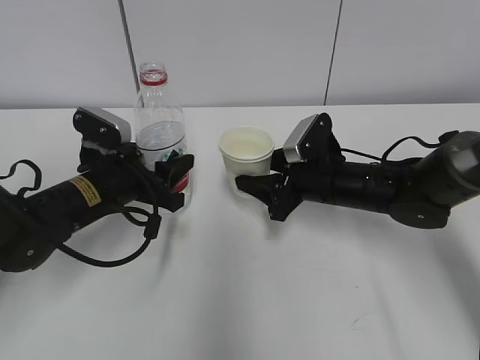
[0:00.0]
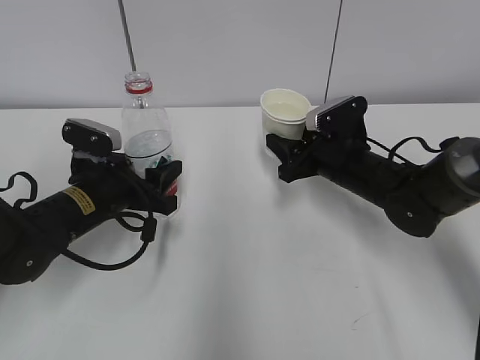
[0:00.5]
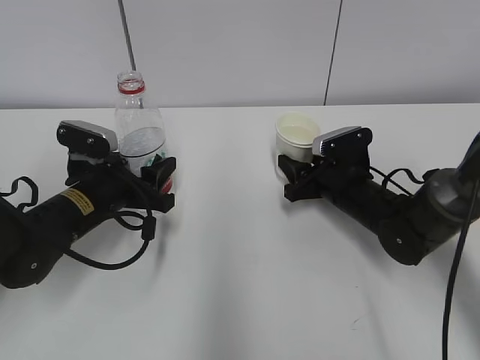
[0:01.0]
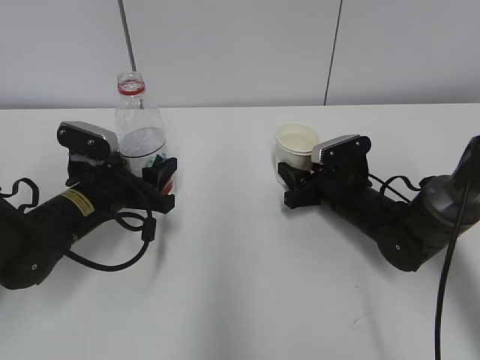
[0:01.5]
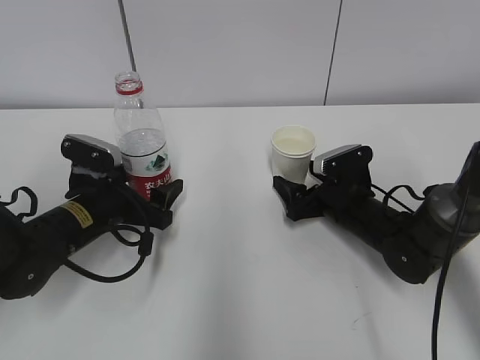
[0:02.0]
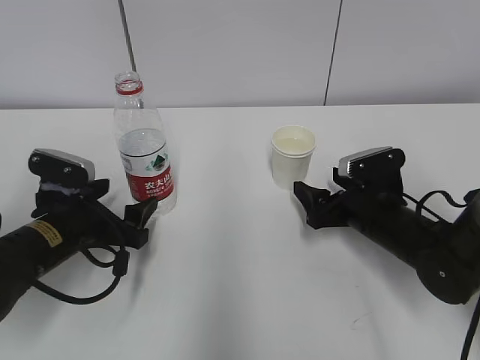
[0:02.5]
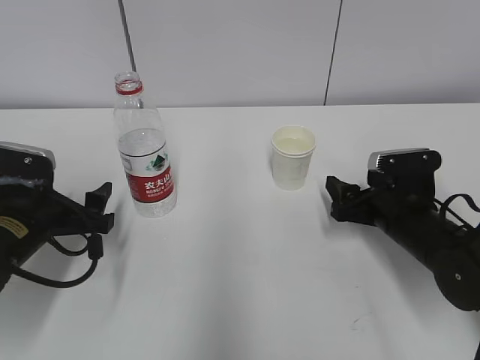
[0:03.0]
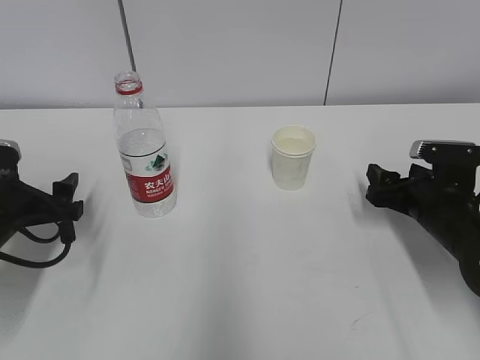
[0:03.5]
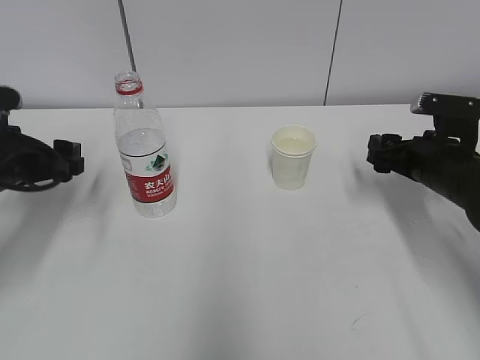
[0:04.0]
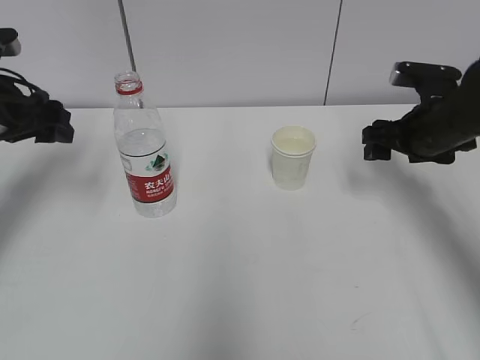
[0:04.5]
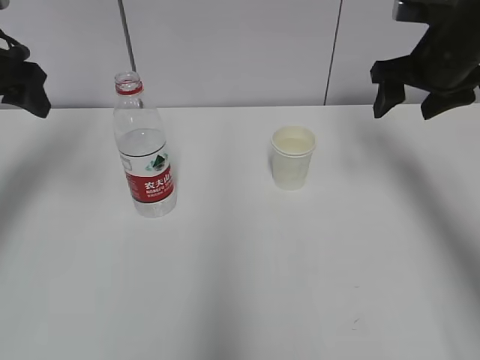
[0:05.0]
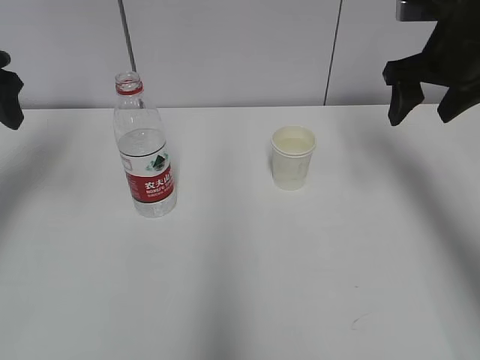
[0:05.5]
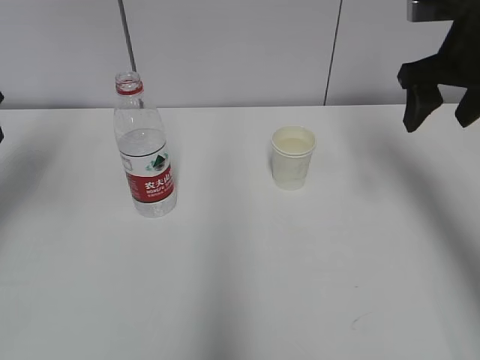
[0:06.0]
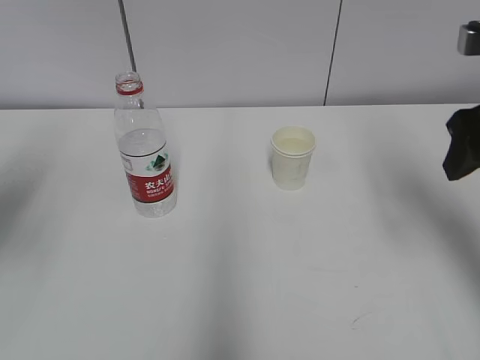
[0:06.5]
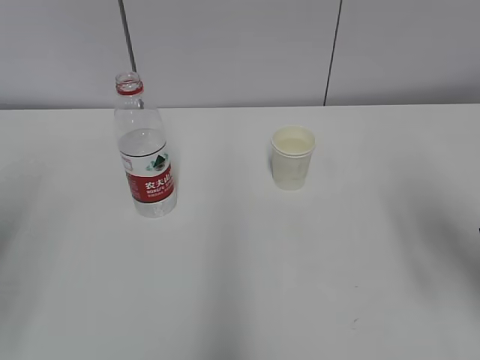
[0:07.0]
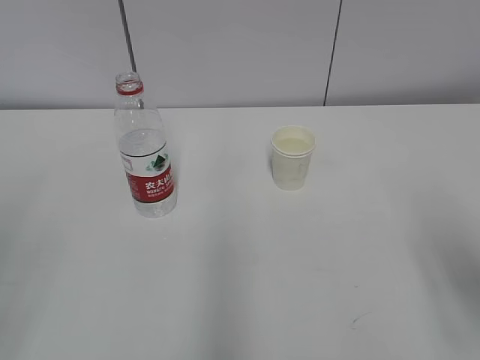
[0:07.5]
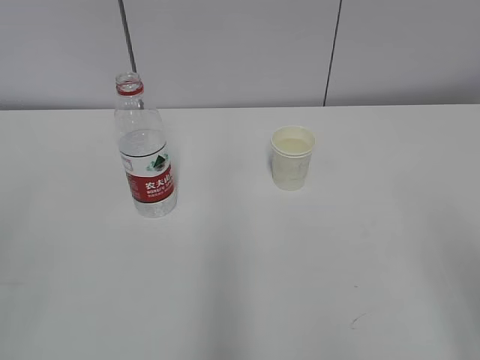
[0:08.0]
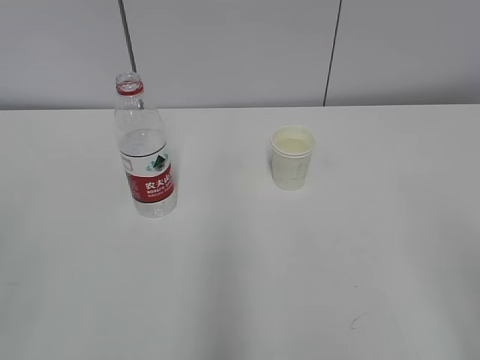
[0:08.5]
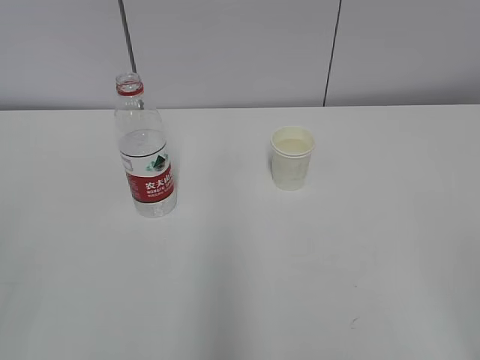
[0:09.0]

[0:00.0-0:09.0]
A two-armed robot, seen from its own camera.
0:00.0 to 0:02.0: The right gripper heads downward, covering roughly 5 cm, and opens its fingers. The left gripper opens its fingers.
0:02.0 to 0:04.5: The right gripper heads upward and to the right, covering some 15 cm; the left gripper moves upward and to the left, some 20 cm.
0:04.5 to 0:07.0: The right gripper goes roughly 20 cm backward and upward. The left gripper moves backward, about 20 cm.
0:07.0 to 0:09.0: The right gripper shifts some 20 cm backward.

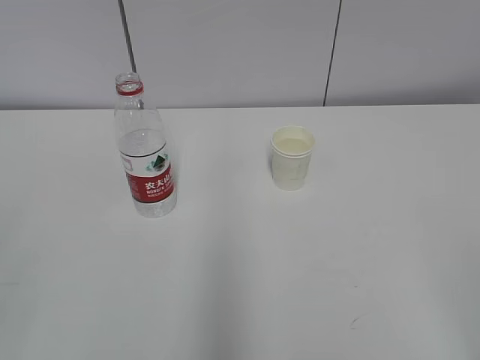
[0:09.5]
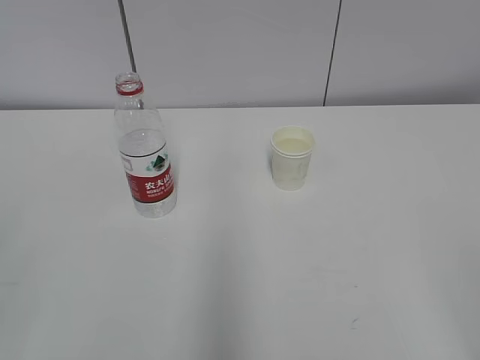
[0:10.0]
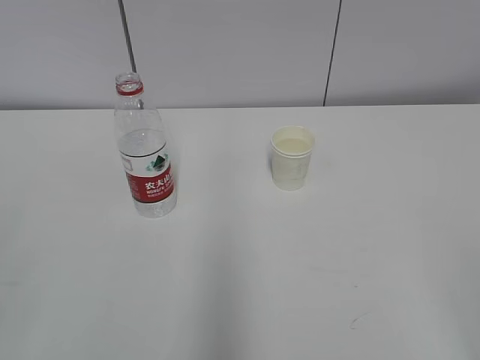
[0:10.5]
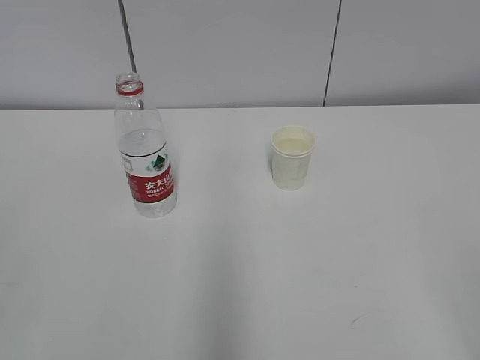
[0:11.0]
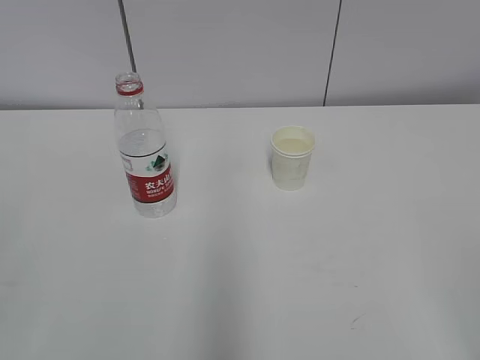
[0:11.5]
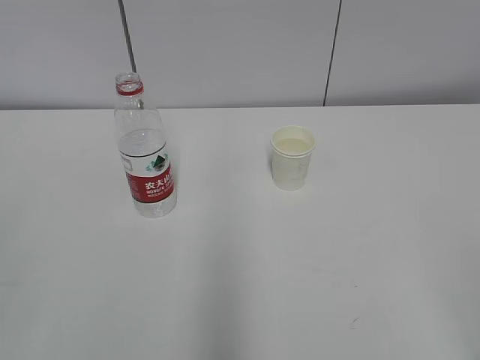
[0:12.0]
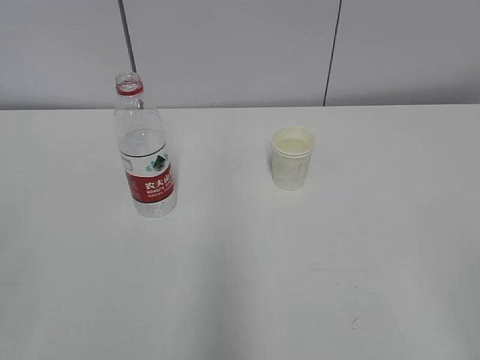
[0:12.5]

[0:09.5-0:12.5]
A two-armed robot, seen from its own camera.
0:09.5 to 0:12.5: Neither gripper changes place.

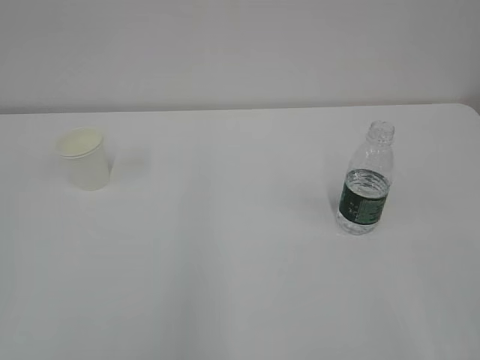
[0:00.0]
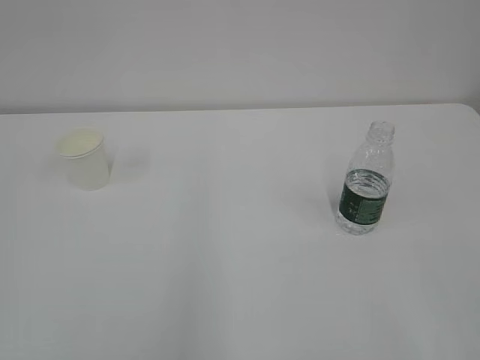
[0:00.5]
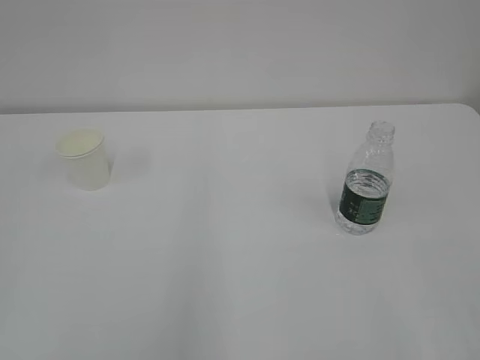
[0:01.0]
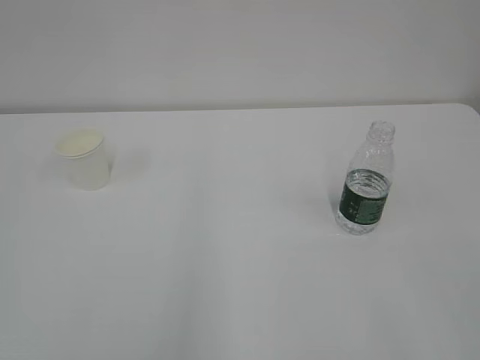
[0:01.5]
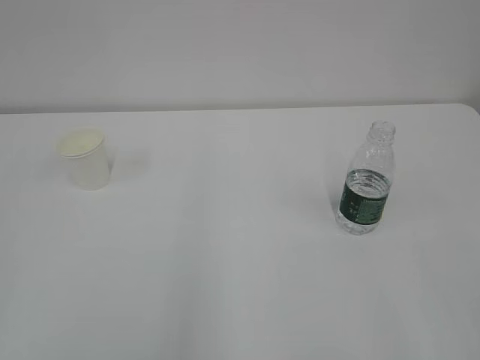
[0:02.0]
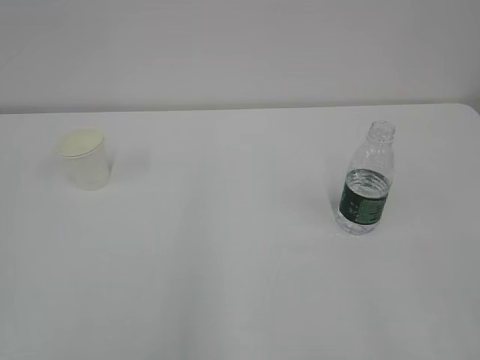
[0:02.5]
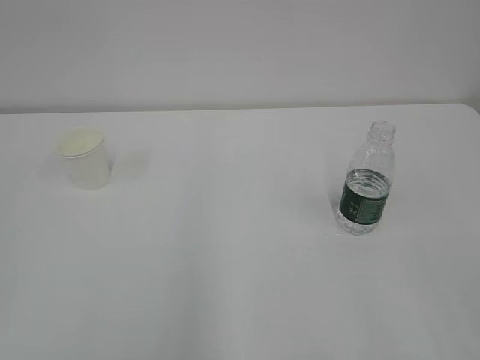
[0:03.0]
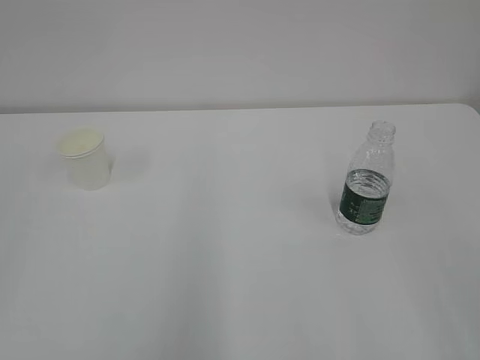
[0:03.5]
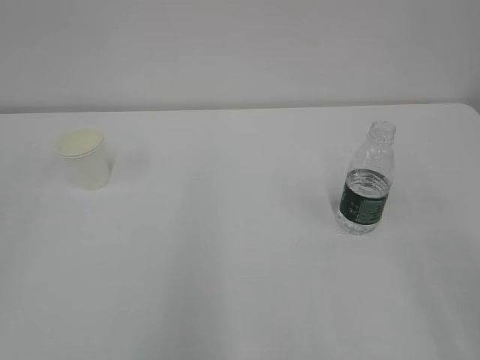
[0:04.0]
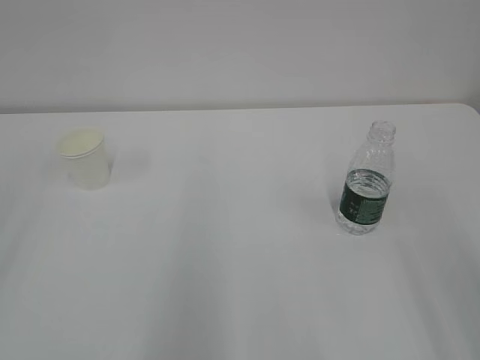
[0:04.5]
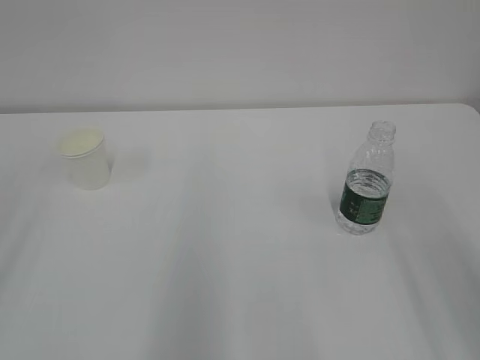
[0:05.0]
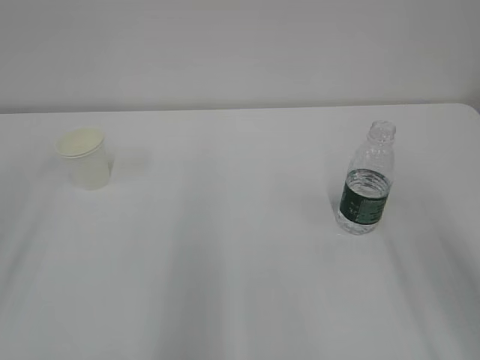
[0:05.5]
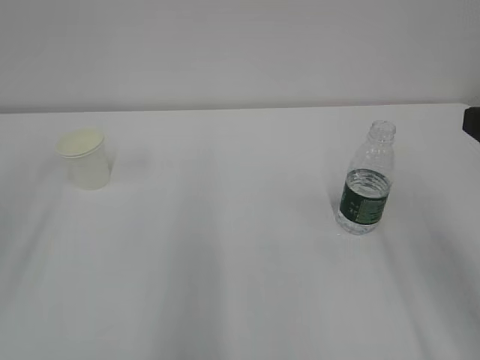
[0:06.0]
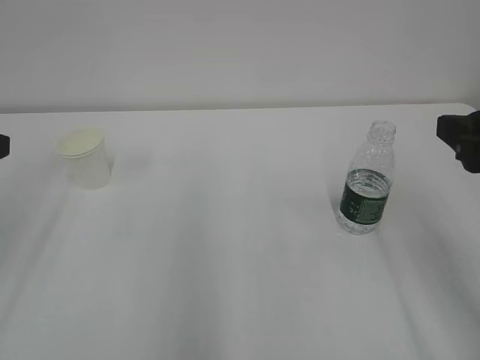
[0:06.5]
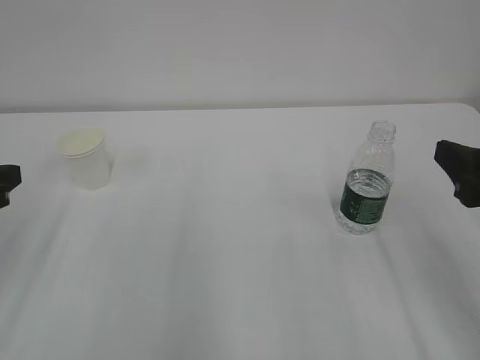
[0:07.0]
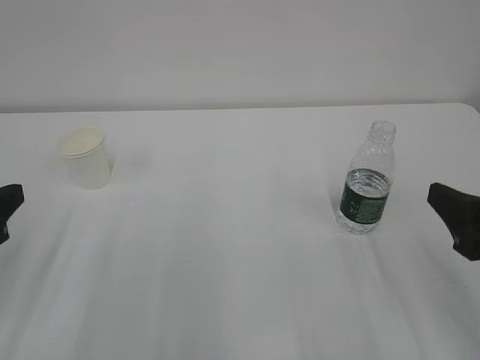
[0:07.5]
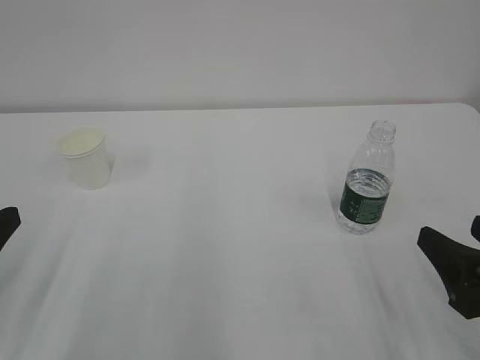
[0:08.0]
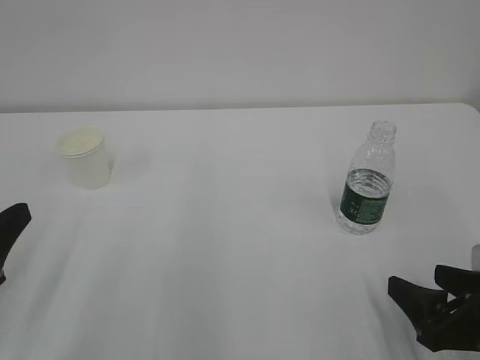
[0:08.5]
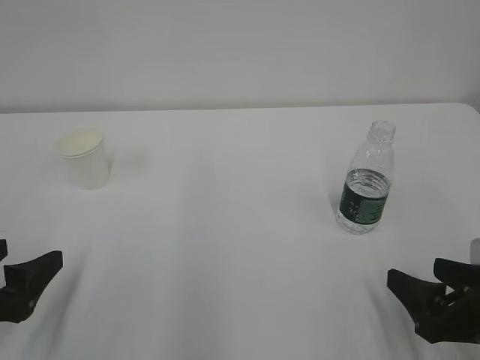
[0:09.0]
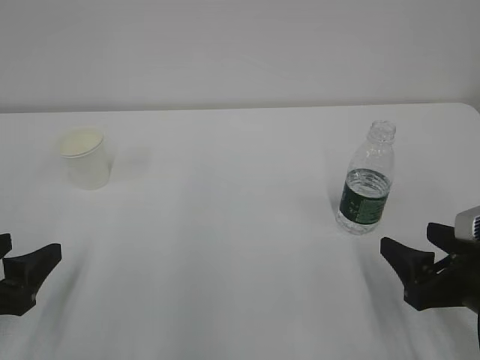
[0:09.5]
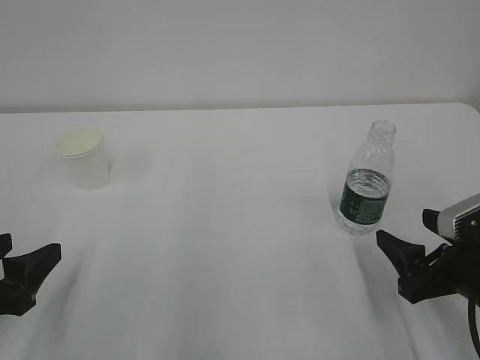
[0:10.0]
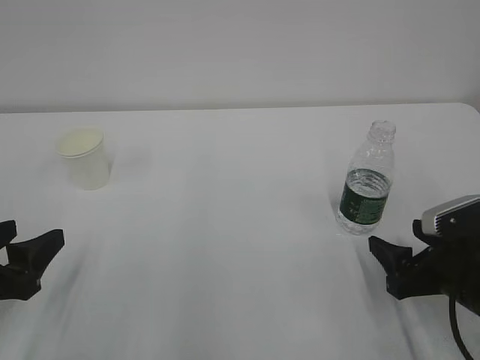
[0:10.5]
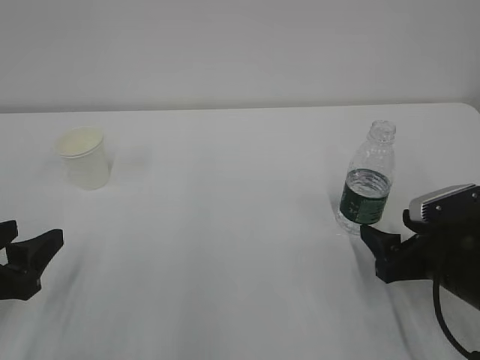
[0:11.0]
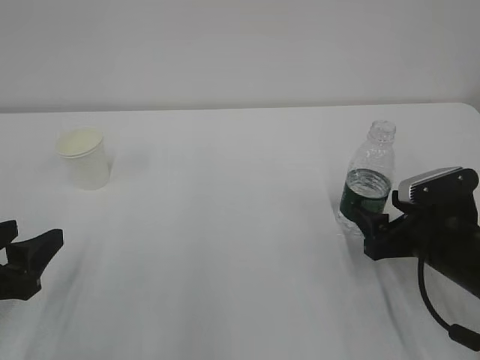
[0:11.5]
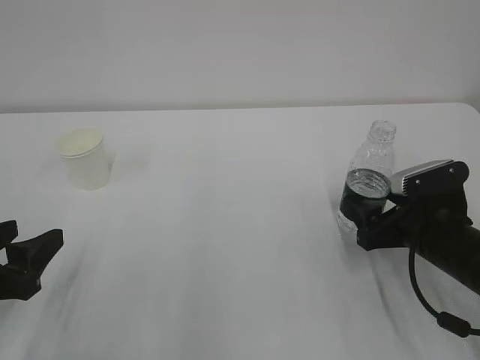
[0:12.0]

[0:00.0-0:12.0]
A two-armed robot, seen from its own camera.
0:06.0 to 0:08.0: The right gripper shifts some 15 cm downward.
0:08.0 to 0:10.0: The left gripper opens its fingers. Meanwhile the right gripper goes roughly 5 cm forward.
0:10.0 to 0:12.0: The right gripper travels forward by some 10 cm.

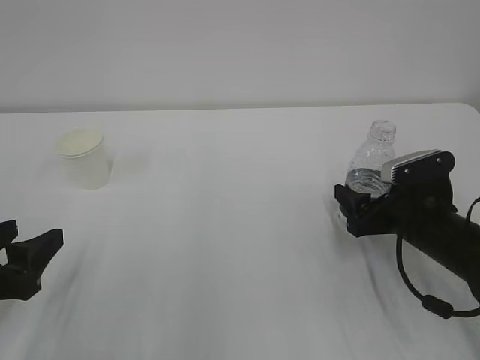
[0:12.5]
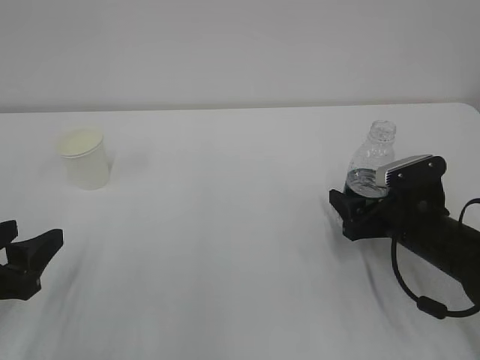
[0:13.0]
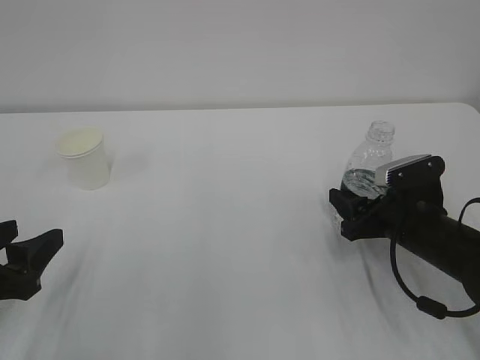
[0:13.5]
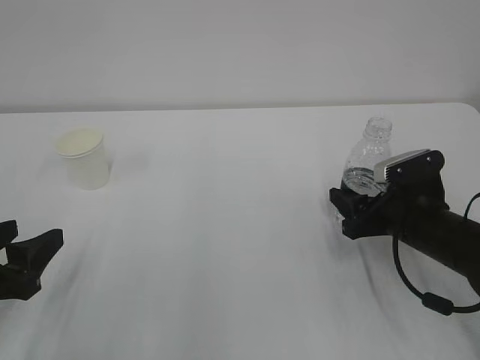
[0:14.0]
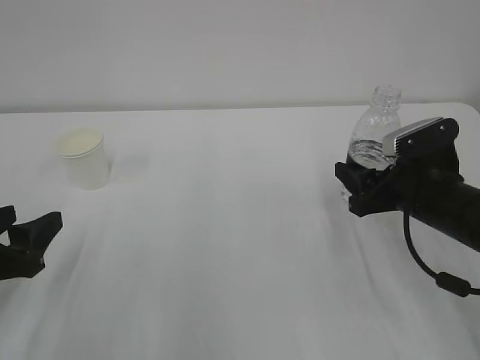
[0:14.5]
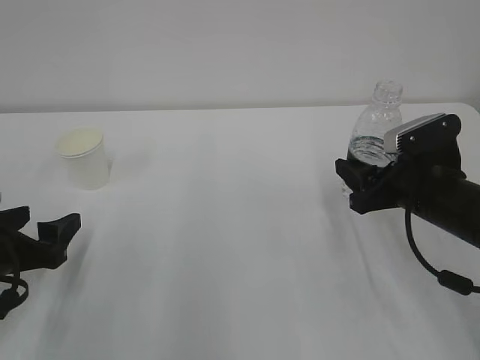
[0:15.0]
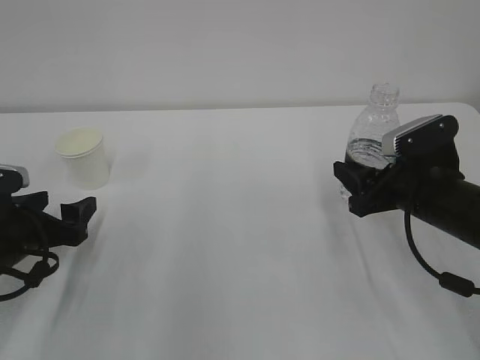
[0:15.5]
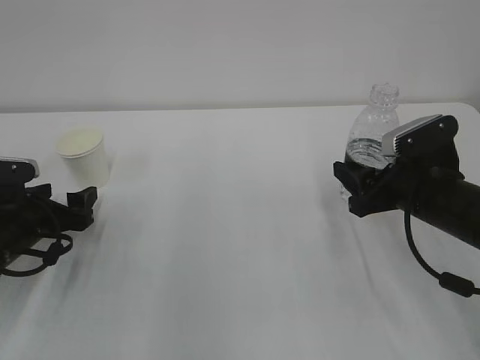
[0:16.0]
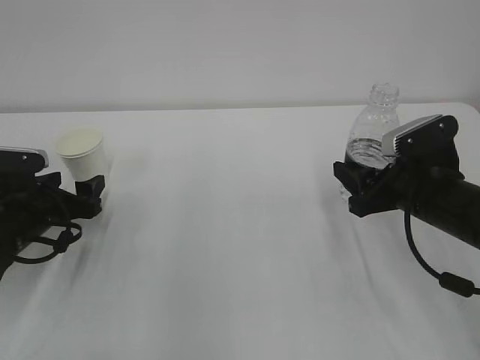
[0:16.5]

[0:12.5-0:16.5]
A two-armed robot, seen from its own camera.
0:12.5 to 0:14.5: The right gripper closes.
0:14.5 to 0:16.5: The left gripper moves forward and downward, roughly 15 cm.
